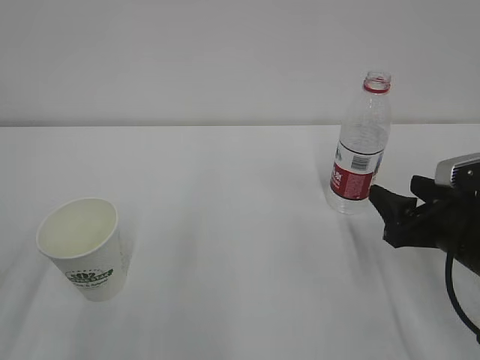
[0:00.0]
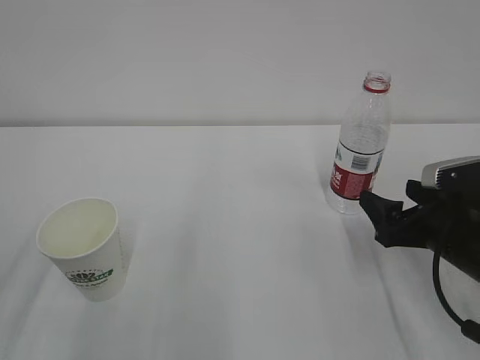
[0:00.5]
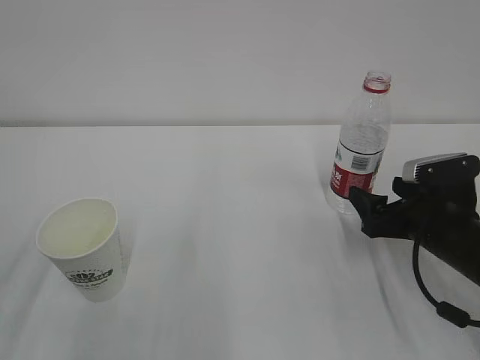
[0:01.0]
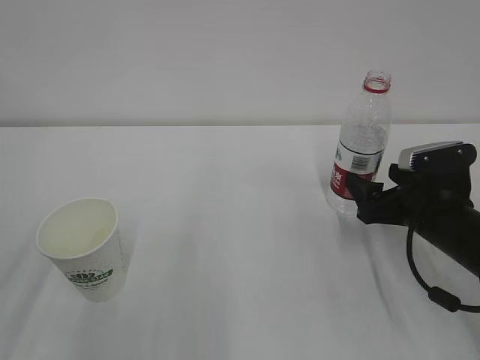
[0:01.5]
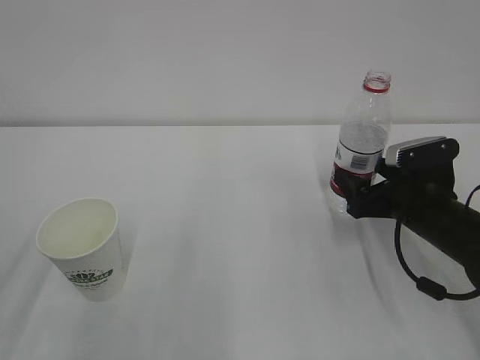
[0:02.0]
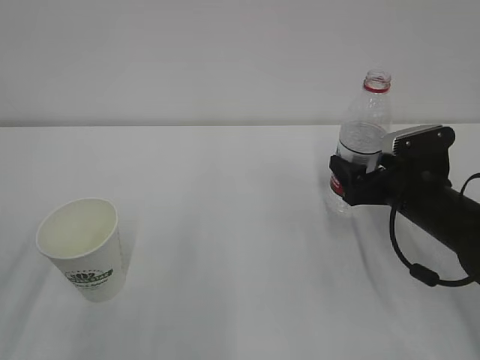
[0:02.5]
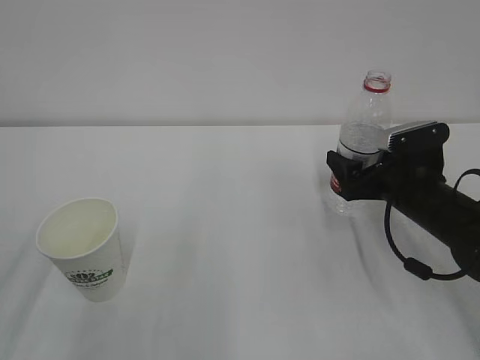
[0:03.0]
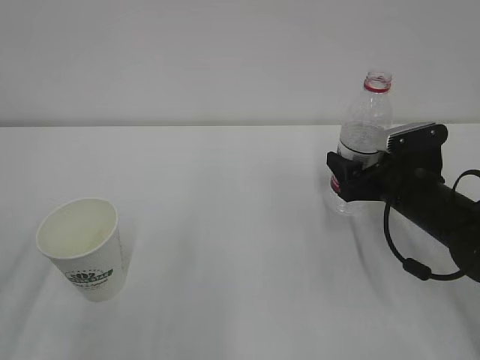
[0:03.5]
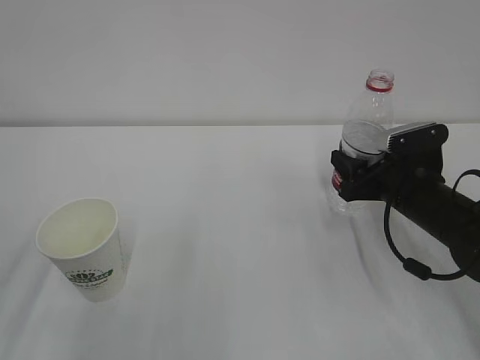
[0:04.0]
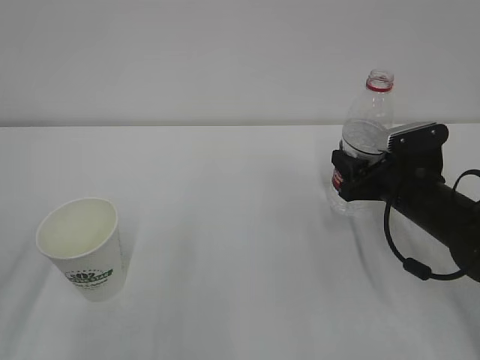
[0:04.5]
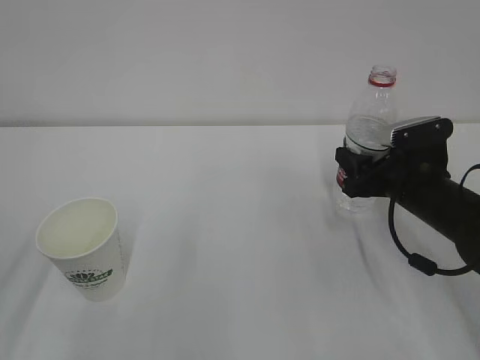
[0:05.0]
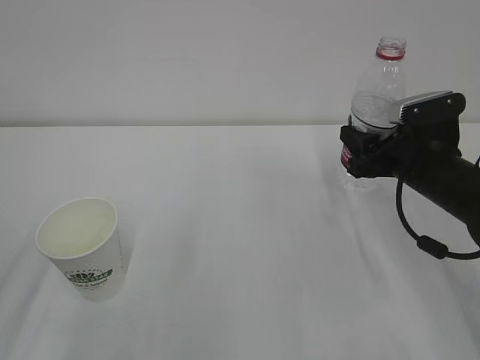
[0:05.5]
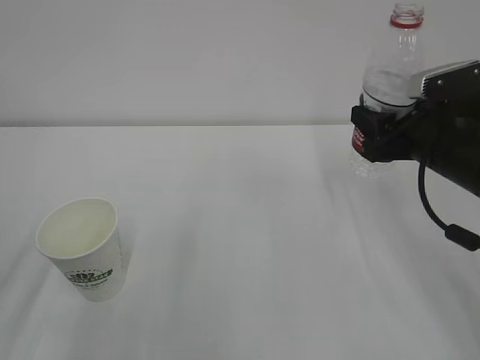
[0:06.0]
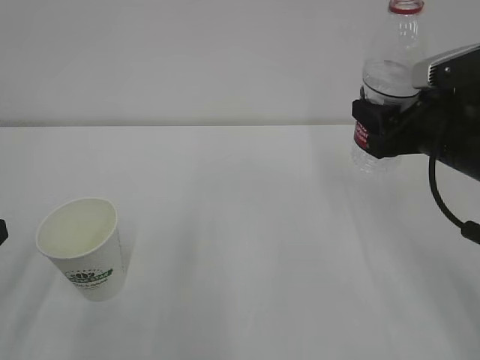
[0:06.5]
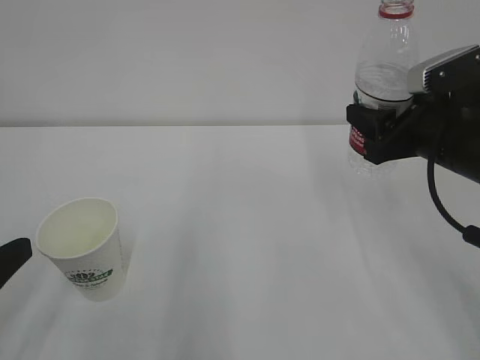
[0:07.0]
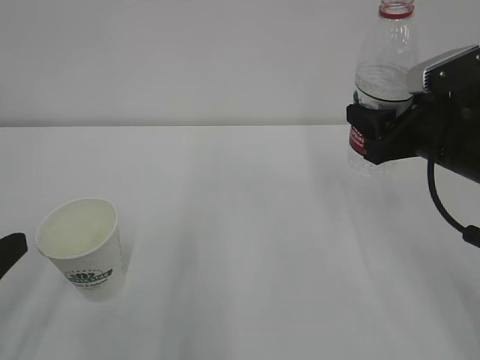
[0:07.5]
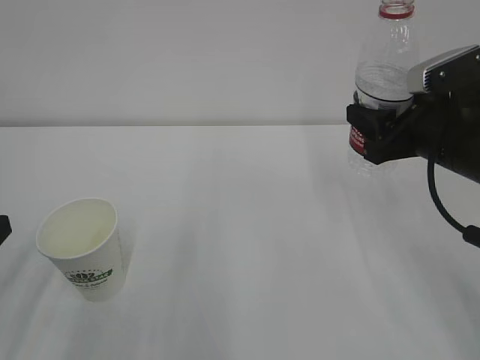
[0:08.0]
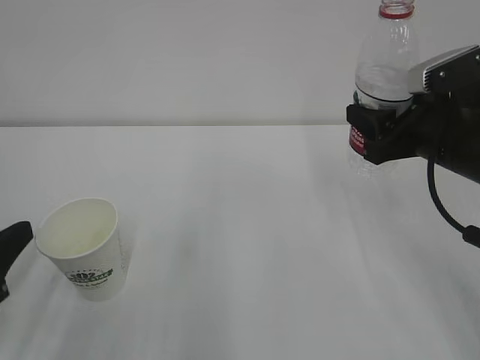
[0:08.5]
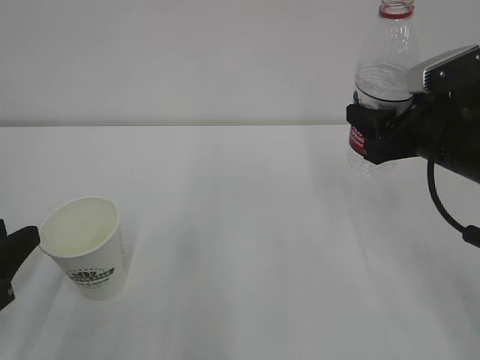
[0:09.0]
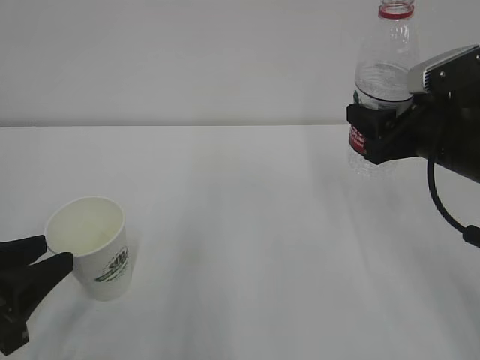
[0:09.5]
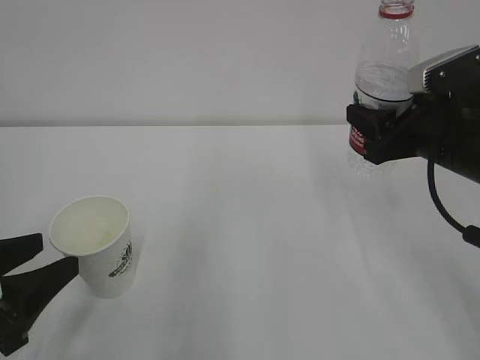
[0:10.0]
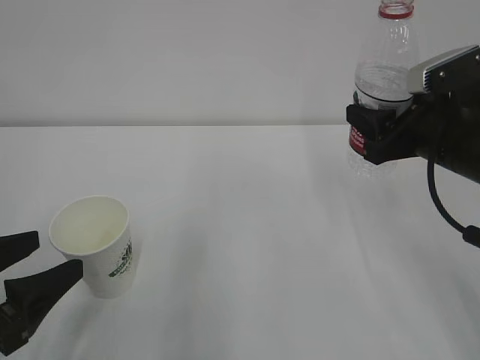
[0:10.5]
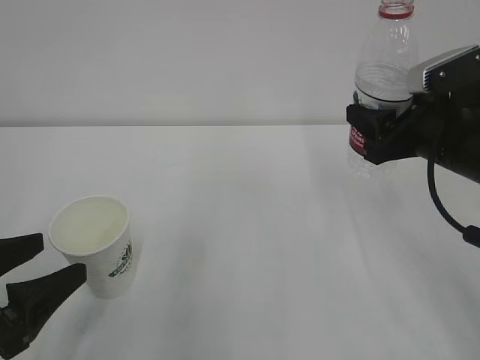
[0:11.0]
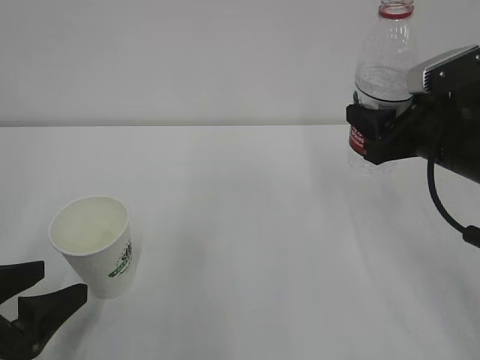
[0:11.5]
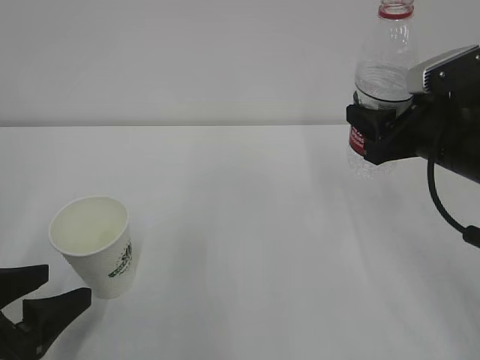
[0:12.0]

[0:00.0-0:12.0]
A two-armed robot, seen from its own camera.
0:00.0 to 0:02.0: The right gripper is displaced forward by about 5 cm, and opens its fingers.
0:02.0 to 0:04.0: The right gripper closes its fingers.
0:04.0 to 0:06.0: The right gripper goes roughly 10 cm upward.
0:06.0 to 0:08.0: The grippers make only small movements.
0:08.0 to 0:10.0: The left gripper opens up.
0:10.0 to 0:12.0: The left gripper opens up.

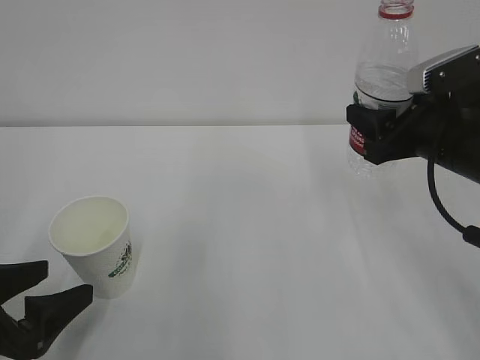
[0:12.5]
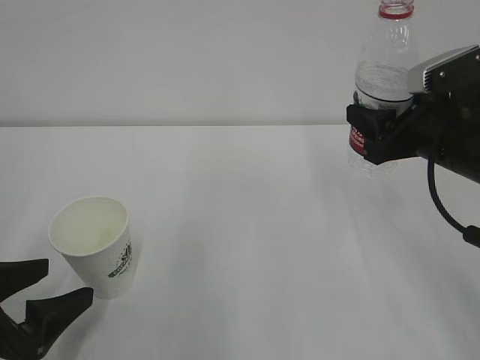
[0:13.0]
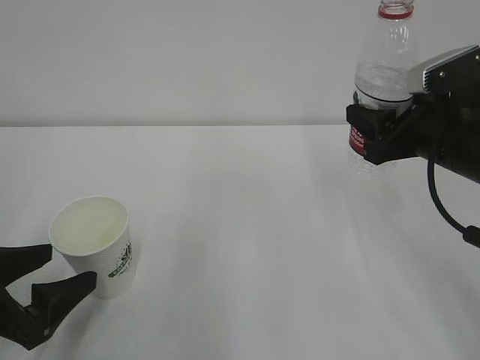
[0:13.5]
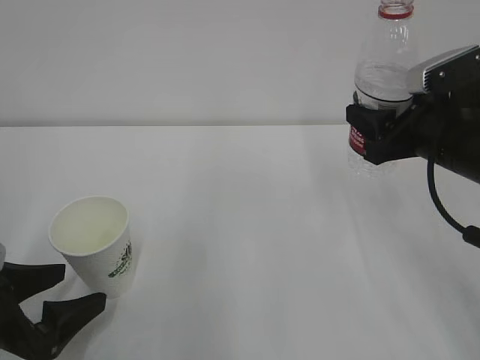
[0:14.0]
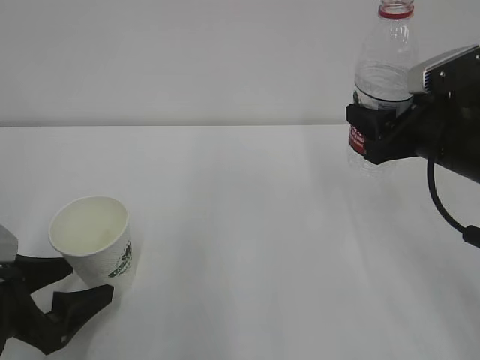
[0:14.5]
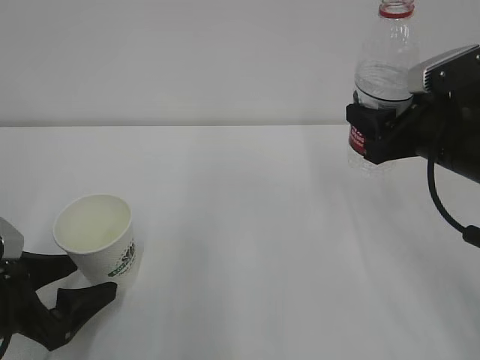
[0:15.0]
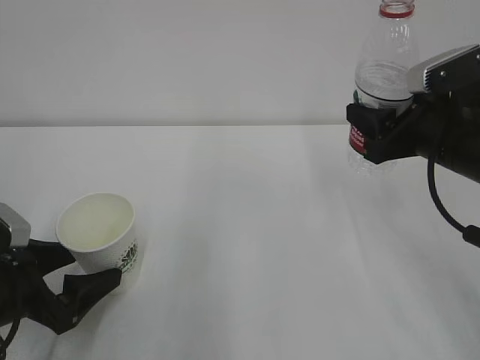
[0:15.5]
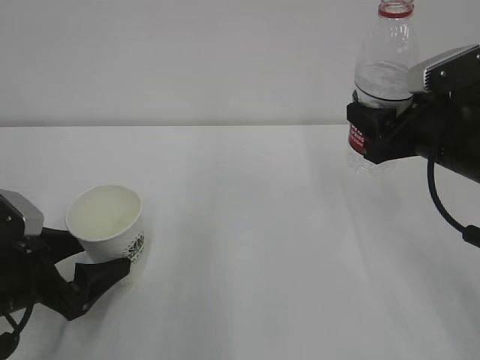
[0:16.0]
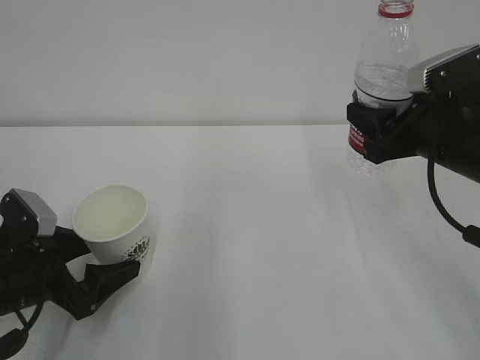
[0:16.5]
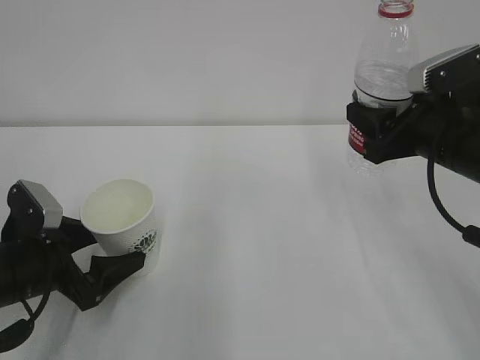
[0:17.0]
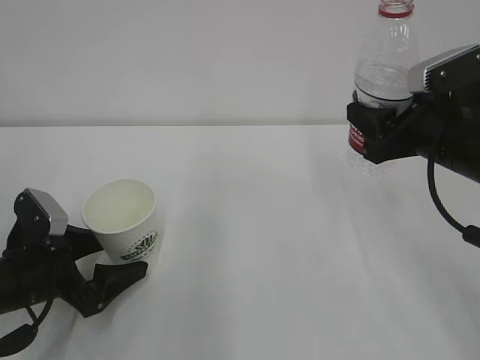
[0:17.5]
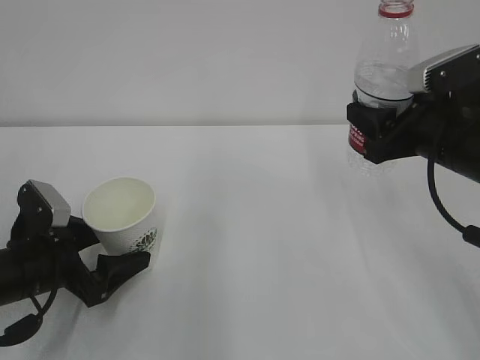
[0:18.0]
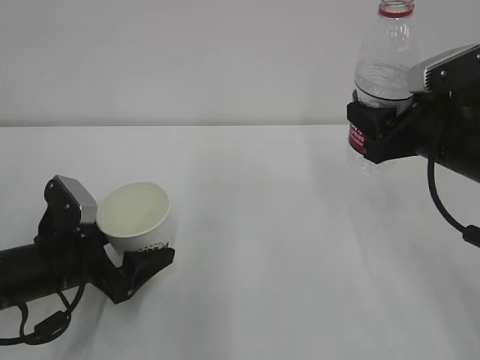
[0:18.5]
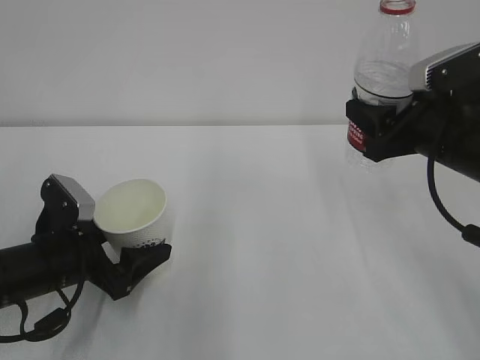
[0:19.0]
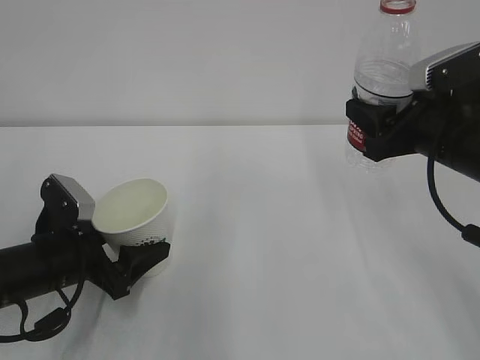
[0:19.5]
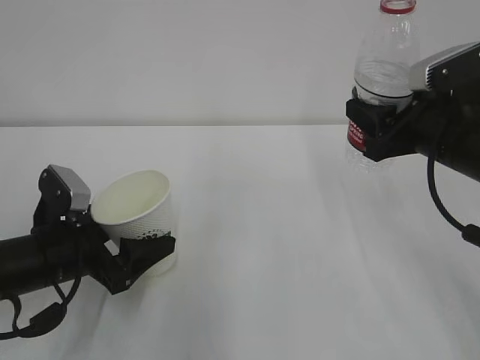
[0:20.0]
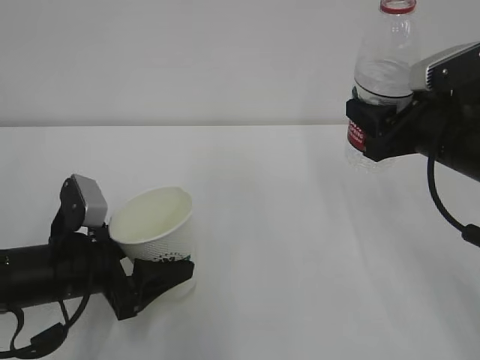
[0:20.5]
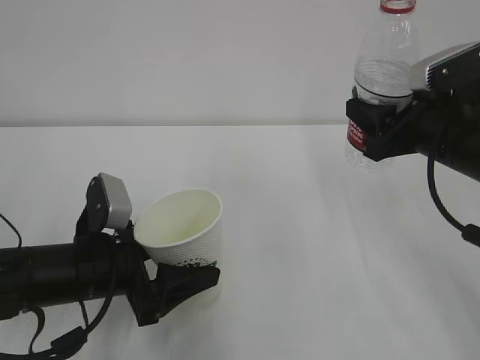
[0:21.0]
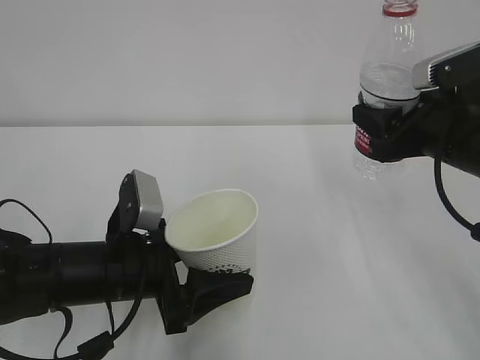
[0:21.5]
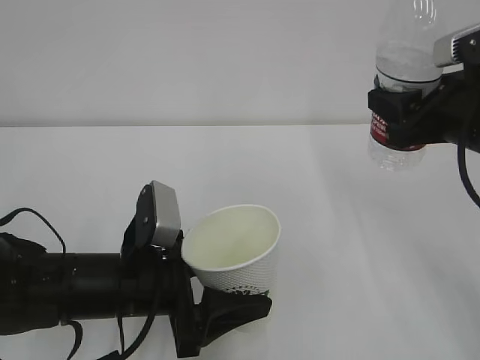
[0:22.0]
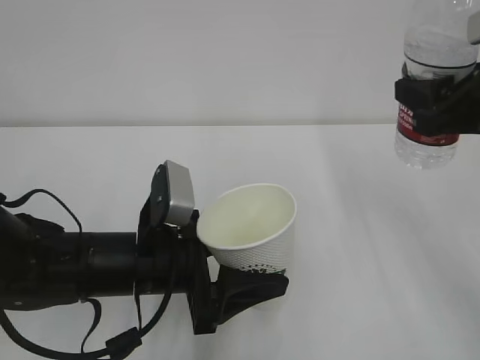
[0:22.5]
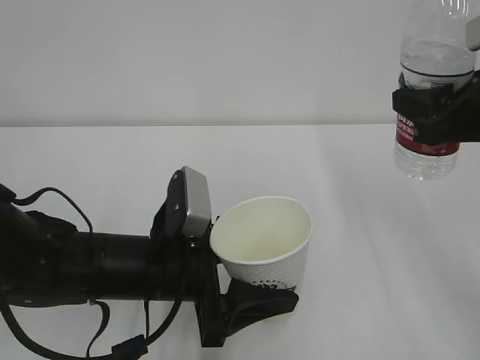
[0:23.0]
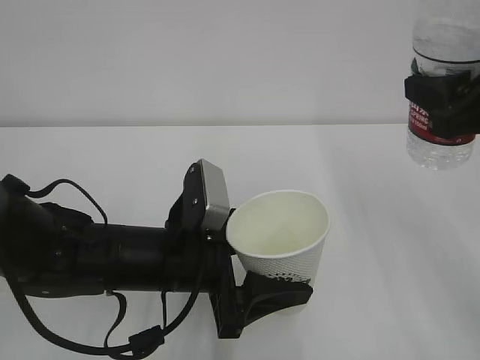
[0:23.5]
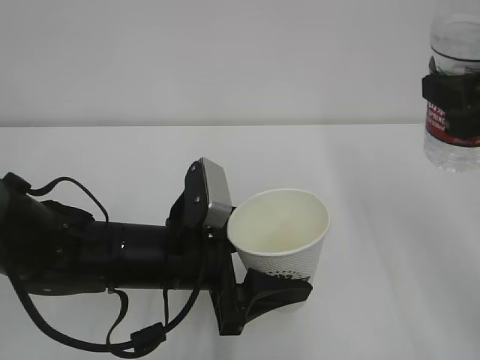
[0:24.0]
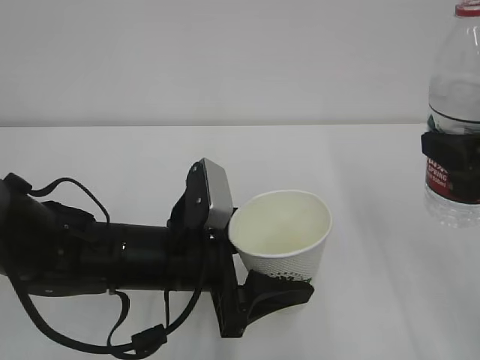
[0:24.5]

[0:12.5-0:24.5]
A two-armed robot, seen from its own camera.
0:12.5 to 0:14.5: The grippers make only small movements.
0:14.5 to 0:16.5: The left gripper changes place by approximately 5 cm.
0:16.5 to 0:18.5: There are only small adjustments of the grippers.
0:18.5 to 0:20.5: The left gripper closes.
0:20.5 to 0:22.5: The right gripper shifts about 5 cm upward. Meanwhile the left gripper moves to the right, approximately 10 cm.
0:22.5 to 0:24.5: The right gripper shifts some 5 cm backward.

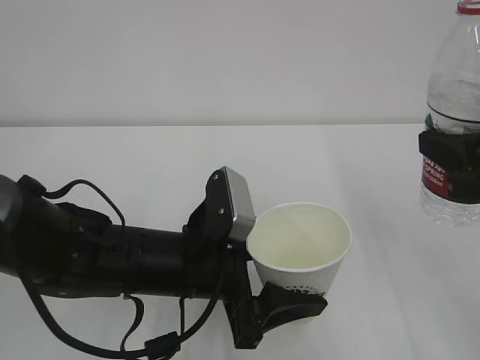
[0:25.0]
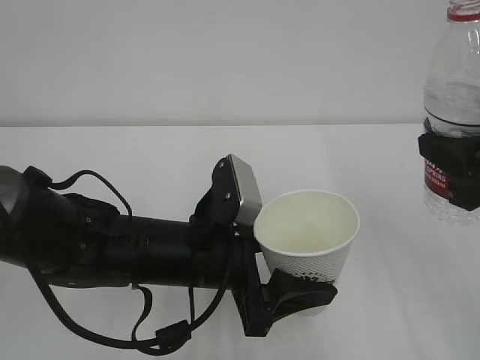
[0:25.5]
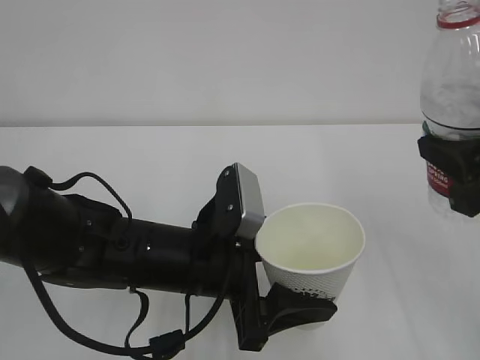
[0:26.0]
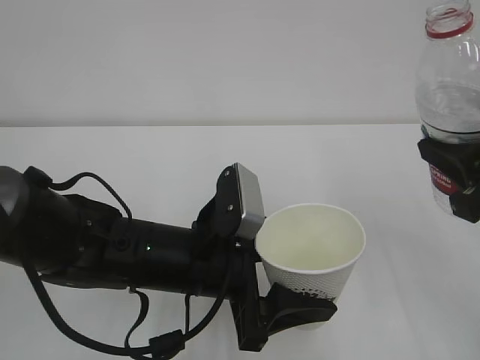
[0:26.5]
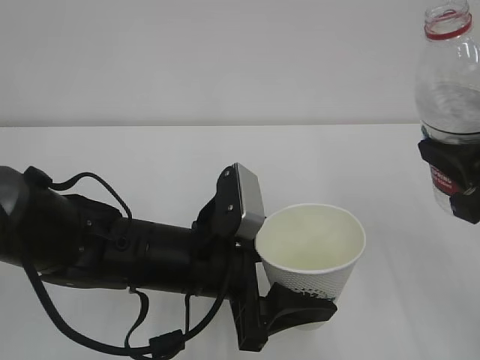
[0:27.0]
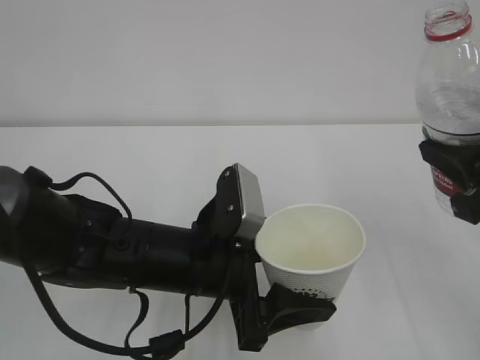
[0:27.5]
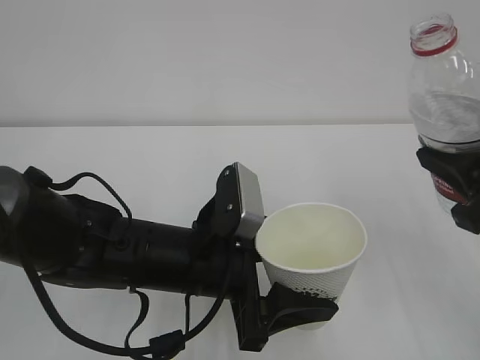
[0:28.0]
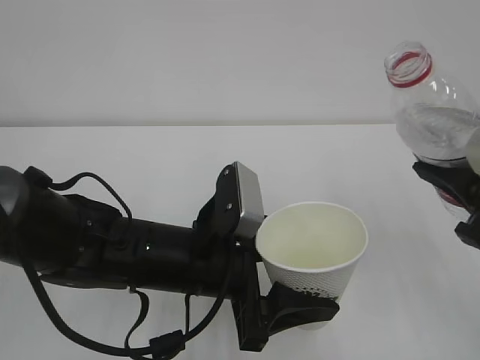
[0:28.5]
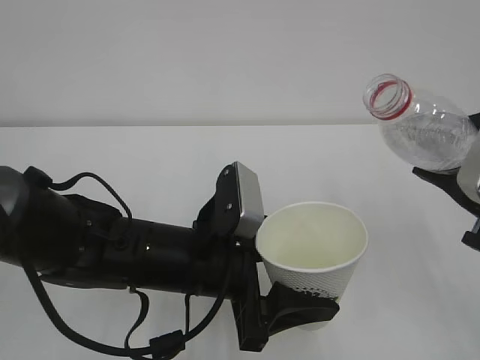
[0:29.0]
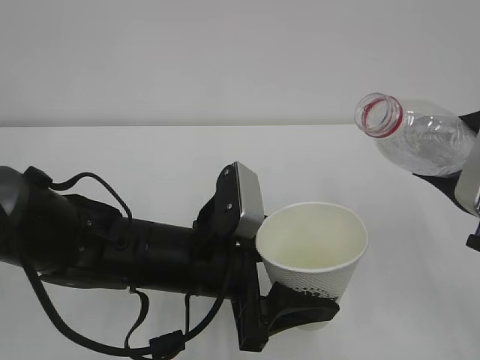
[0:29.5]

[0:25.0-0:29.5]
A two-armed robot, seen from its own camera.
0:25.0 to 0:27.0: The grippers stay close to where they were, moving slightly.
